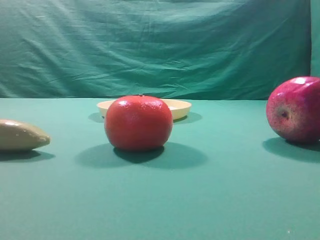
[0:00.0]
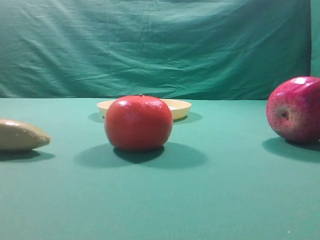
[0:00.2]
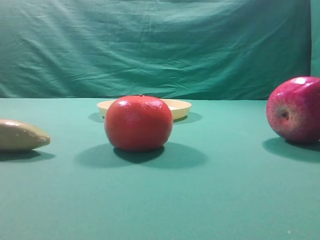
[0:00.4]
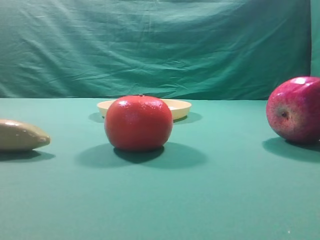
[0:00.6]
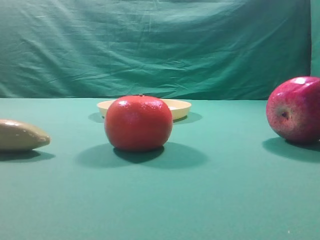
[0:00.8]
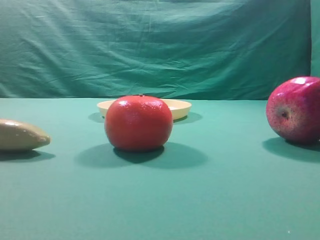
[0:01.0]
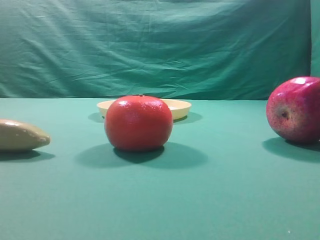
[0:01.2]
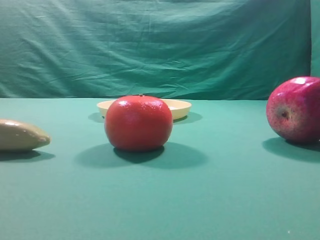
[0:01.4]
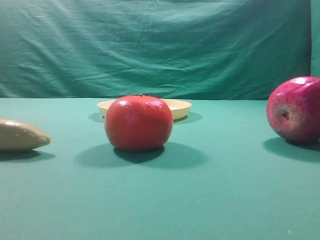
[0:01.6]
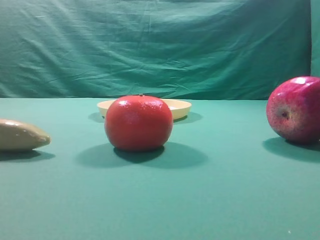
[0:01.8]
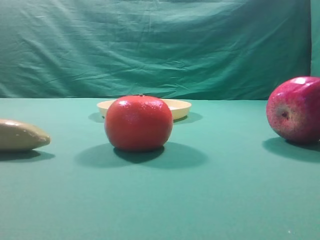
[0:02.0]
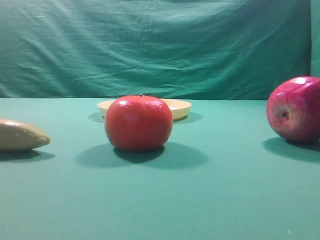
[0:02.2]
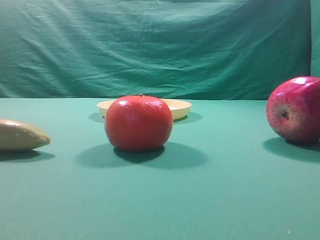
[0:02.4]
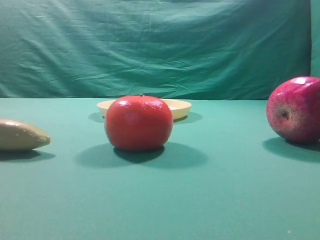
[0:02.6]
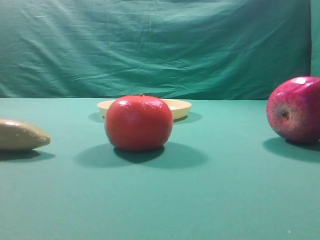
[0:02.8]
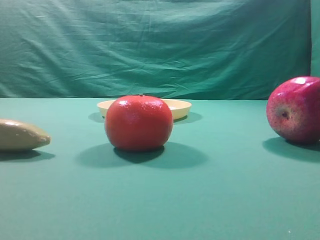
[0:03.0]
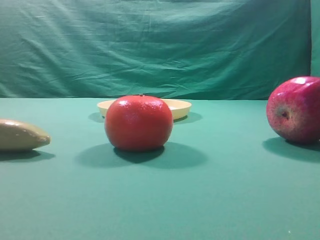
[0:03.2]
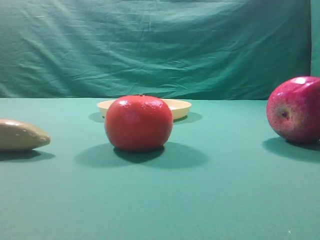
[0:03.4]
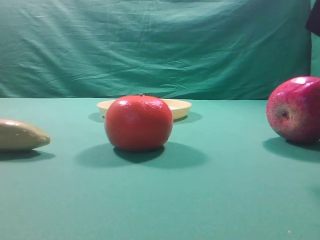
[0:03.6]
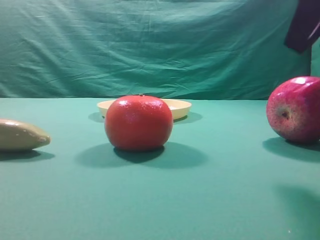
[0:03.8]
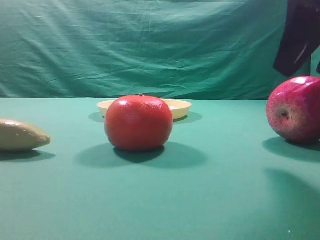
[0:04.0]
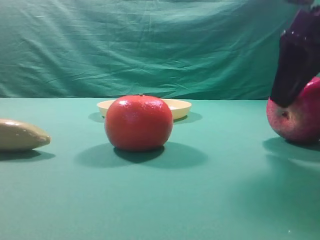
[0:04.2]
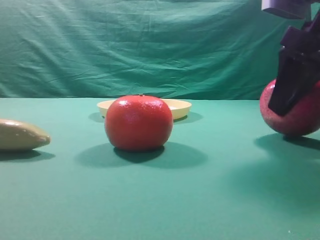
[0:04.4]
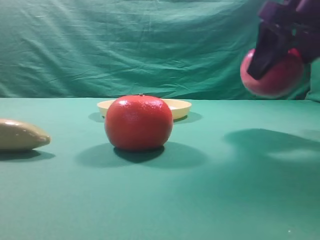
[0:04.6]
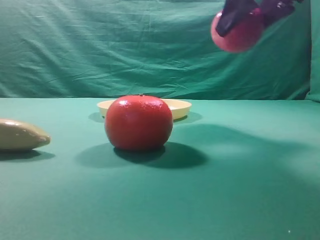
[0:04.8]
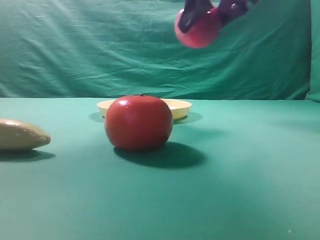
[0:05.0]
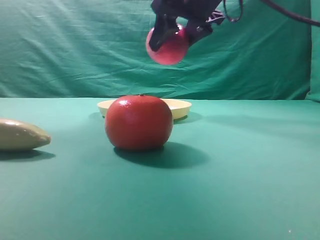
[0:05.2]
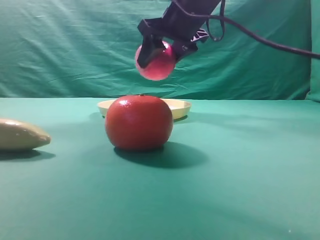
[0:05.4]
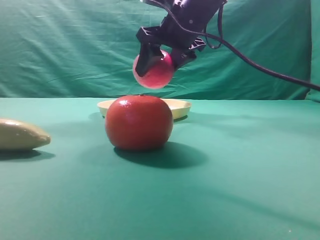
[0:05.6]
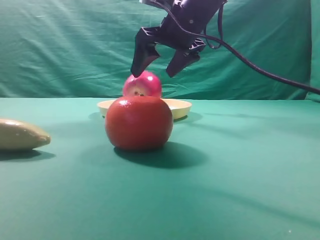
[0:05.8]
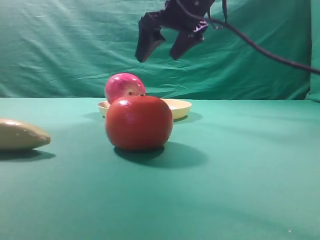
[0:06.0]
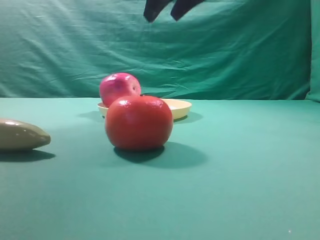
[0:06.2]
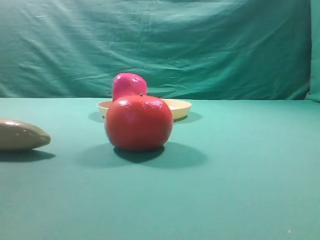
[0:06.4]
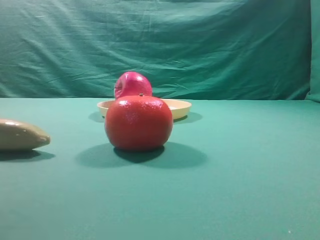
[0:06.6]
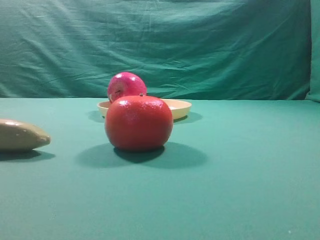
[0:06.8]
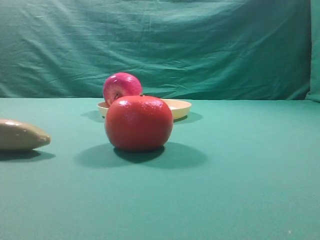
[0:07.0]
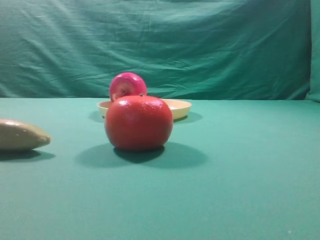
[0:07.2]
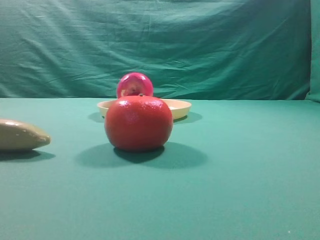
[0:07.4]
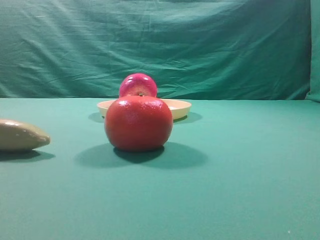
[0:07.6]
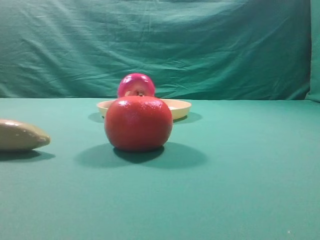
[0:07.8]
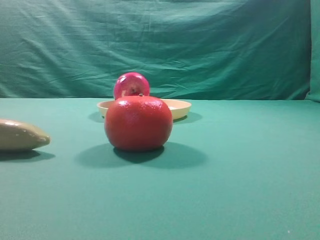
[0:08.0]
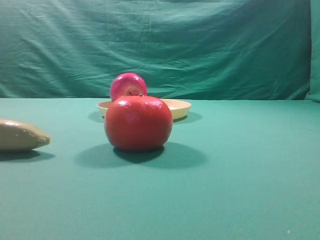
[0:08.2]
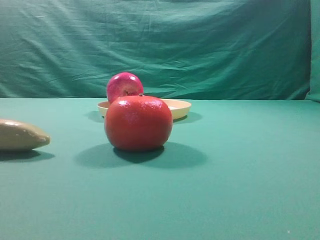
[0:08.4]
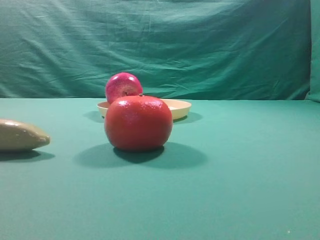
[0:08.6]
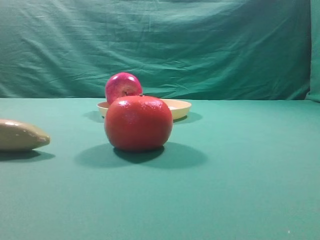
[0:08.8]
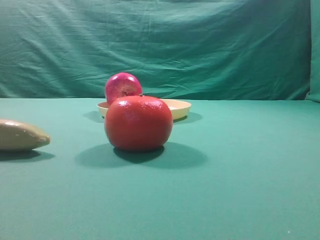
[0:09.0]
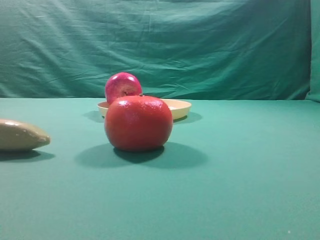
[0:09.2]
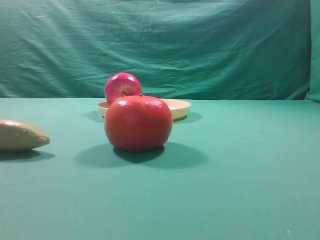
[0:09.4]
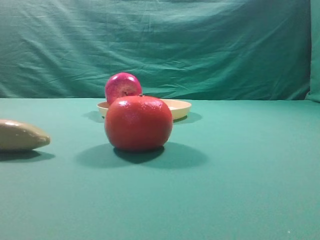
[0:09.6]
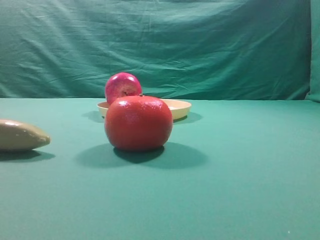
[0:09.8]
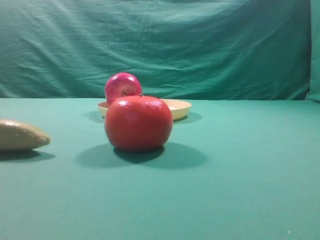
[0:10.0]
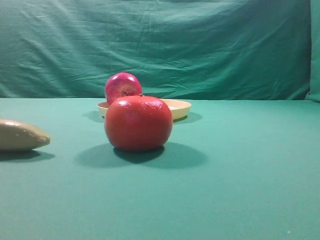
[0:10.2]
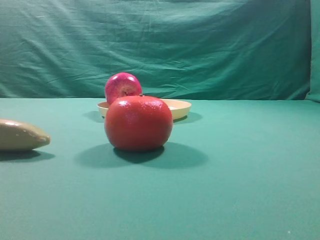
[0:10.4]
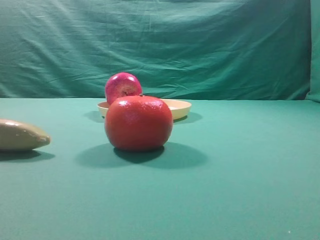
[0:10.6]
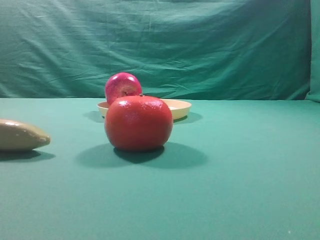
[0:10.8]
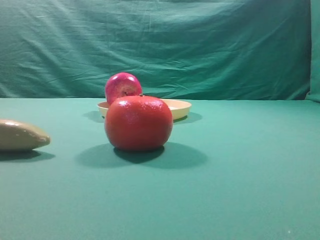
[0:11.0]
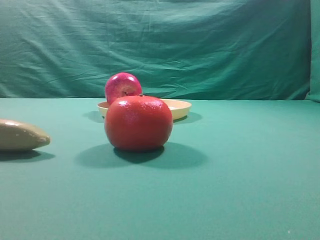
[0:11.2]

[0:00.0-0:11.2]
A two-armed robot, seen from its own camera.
Task of the whole recording: grasp the apple and place it into the yellow plate.
Step, 0:00.0 to 0:04.4: Grasp the fruit that can keep the doctor away.
Step, 0:04.6 to 0:05.8: Place the picked object into the yellow plate.

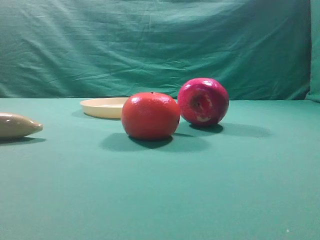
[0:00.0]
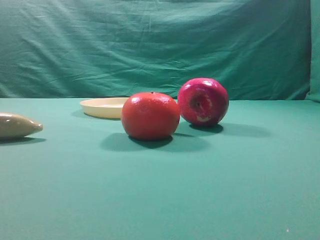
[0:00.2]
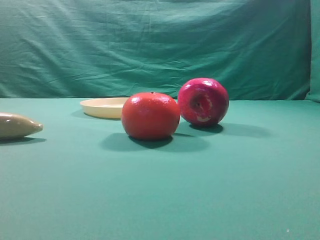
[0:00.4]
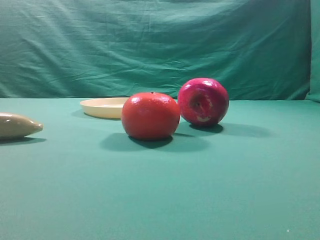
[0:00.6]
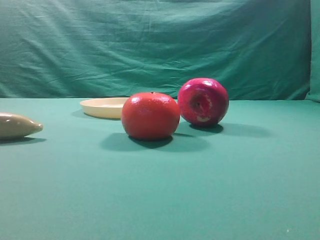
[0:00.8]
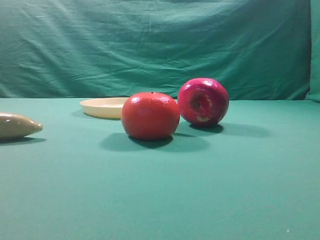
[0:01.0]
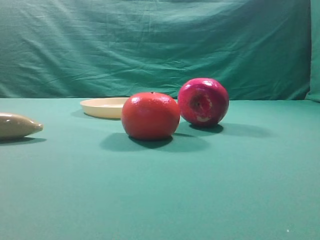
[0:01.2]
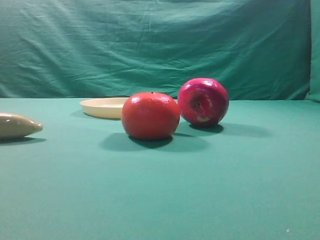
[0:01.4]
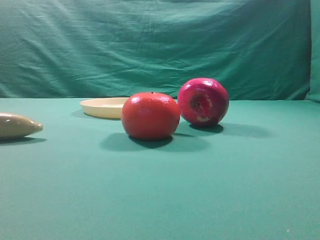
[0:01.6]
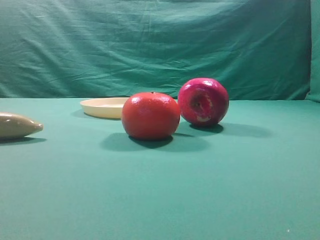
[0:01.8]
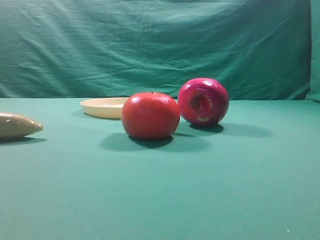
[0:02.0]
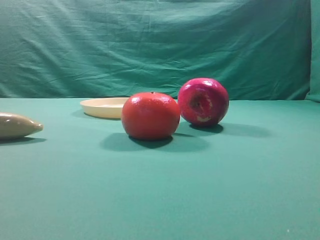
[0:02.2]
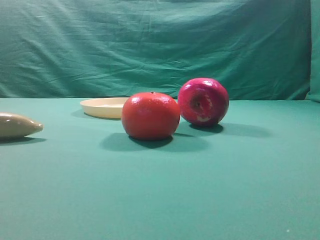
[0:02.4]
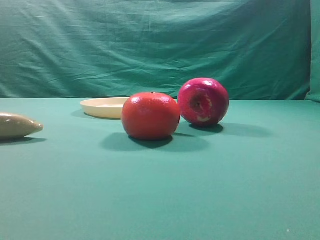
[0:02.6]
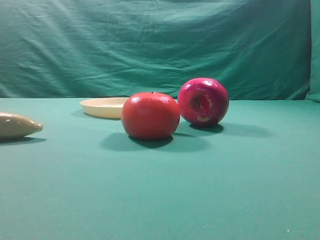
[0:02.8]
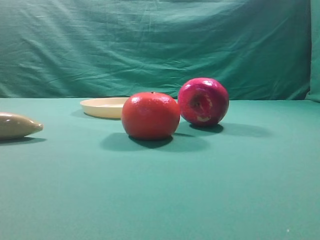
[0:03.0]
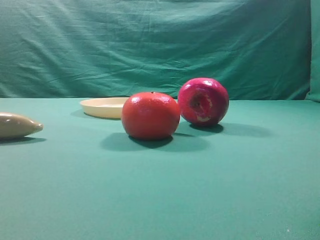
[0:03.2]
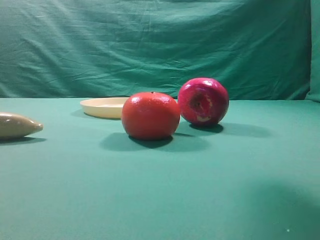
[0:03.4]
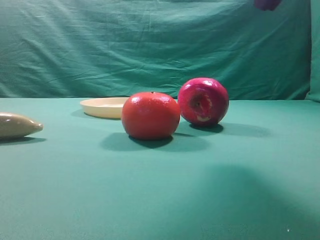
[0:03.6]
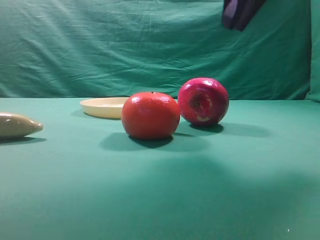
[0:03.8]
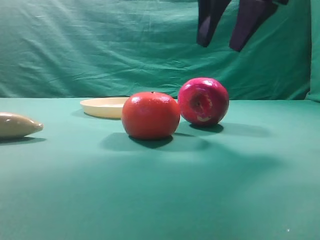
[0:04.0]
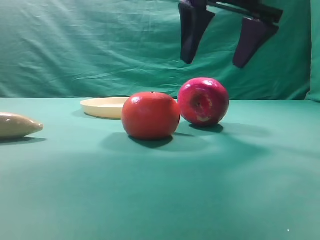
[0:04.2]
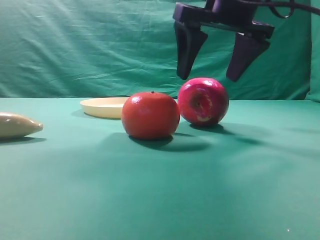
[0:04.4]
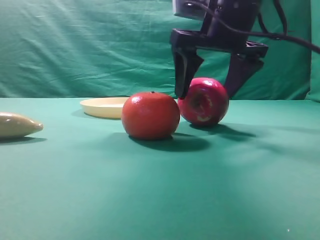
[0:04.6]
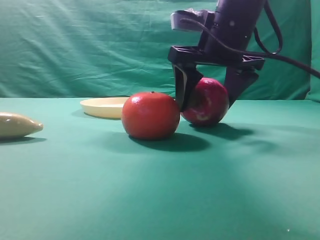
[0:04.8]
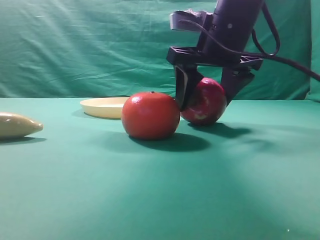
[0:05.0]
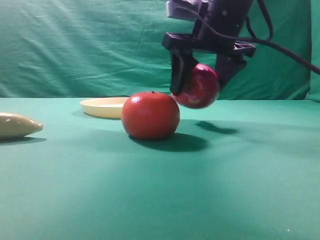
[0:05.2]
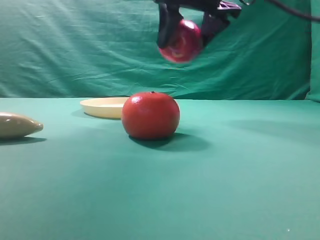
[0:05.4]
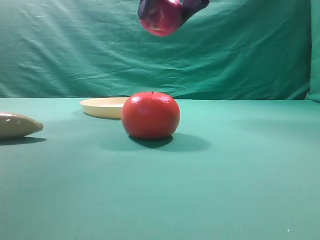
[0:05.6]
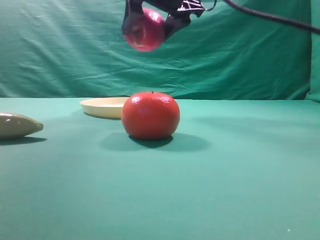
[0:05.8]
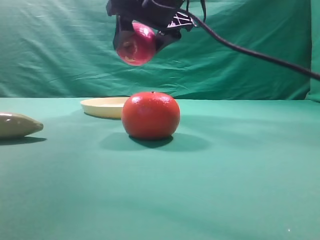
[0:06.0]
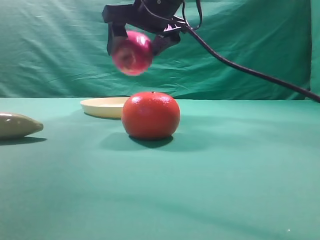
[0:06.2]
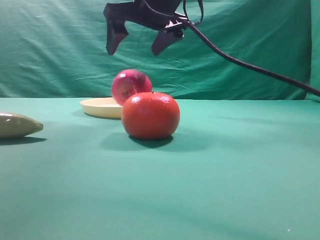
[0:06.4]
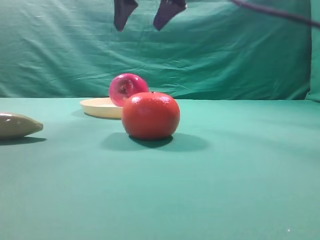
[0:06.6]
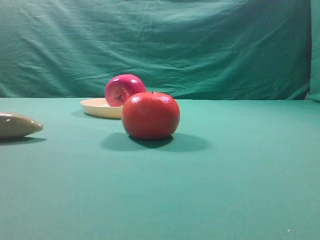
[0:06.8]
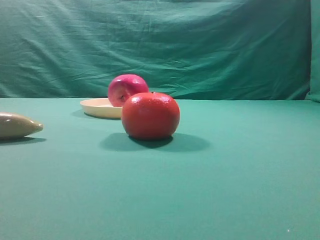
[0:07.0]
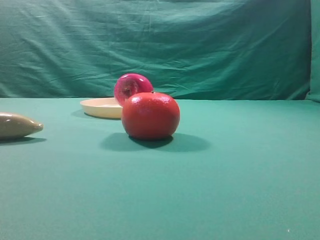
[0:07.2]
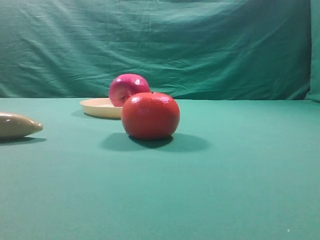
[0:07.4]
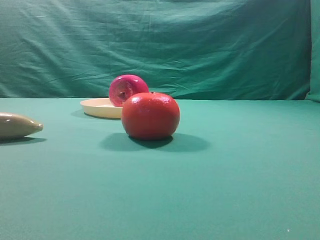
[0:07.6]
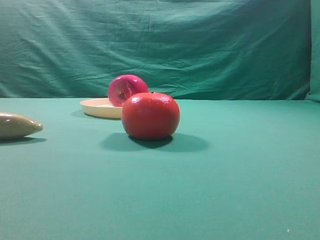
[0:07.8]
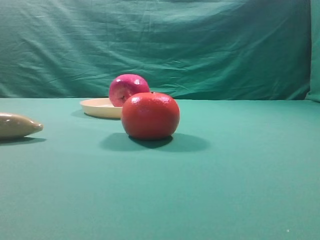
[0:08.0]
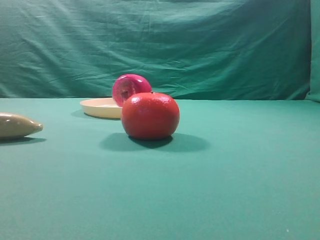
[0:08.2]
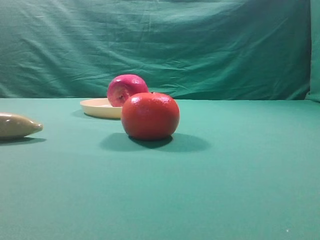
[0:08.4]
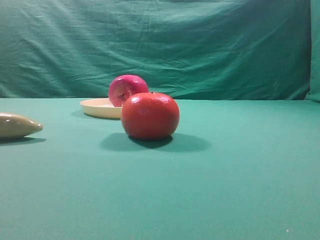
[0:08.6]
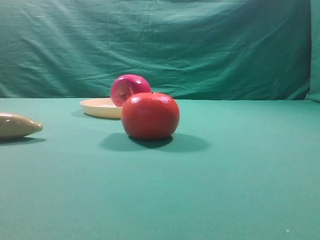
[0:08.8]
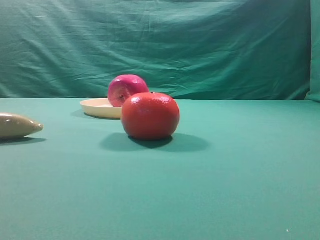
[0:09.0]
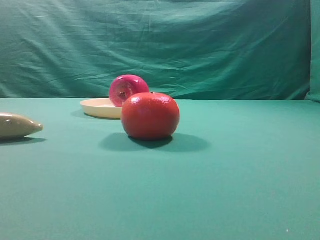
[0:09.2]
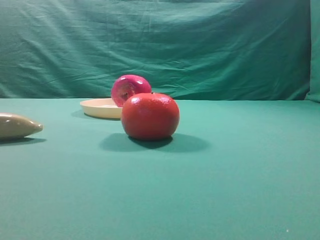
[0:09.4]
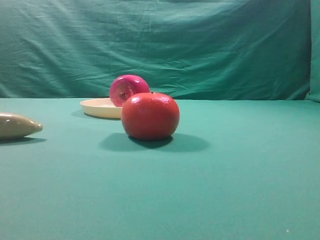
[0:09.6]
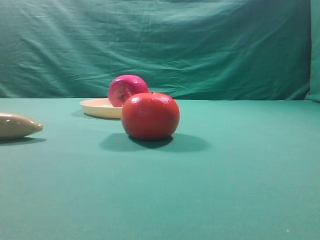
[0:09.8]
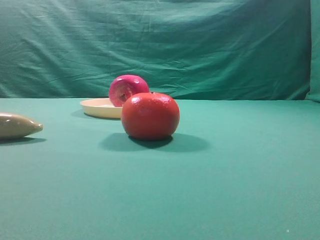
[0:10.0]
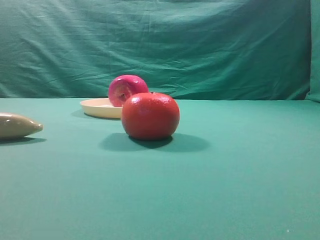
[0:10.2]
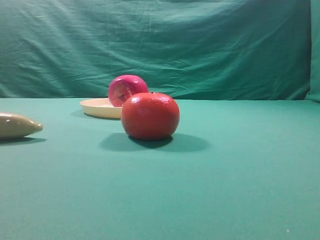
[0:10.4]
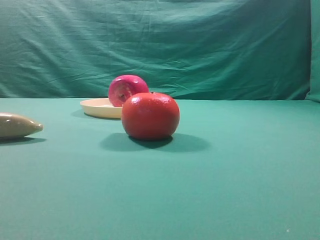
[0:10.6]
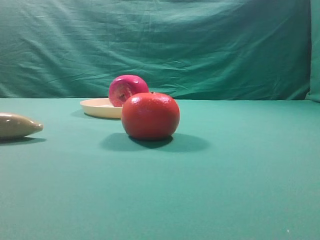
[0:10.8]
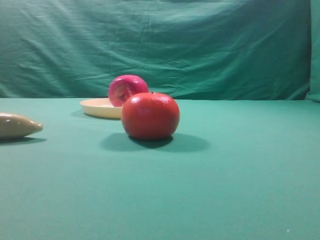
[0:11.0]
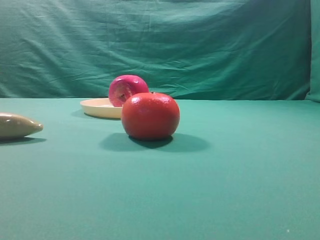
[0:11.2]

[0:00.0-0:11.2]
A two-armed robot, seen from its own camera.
Task of the whole recording: grasp the apple and place it into the yellow plate.
Step, 0:00.0 to 0:05.2: Grasp the fruit that can keep the doctor away.
Step, 0:05.4 to 0:06.4: Place the picked object into the yellow plate.
